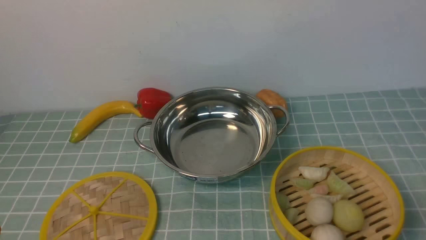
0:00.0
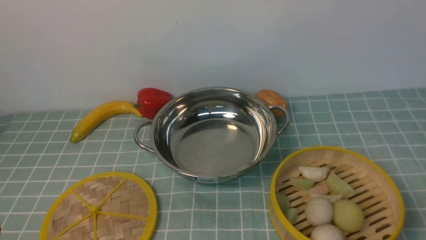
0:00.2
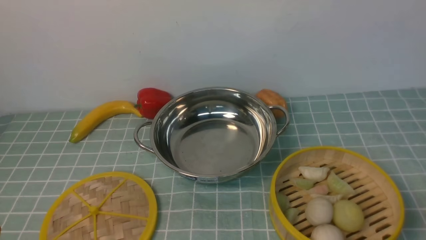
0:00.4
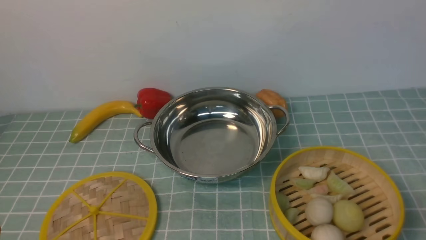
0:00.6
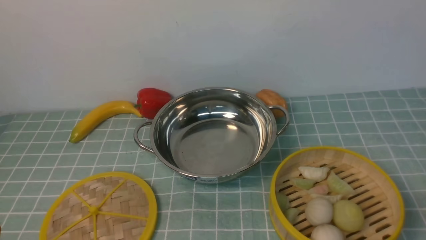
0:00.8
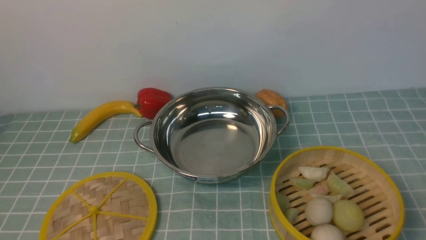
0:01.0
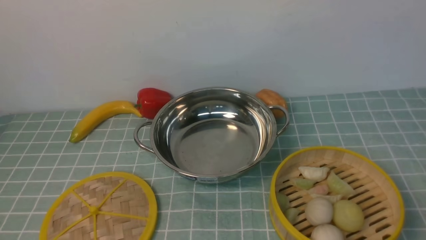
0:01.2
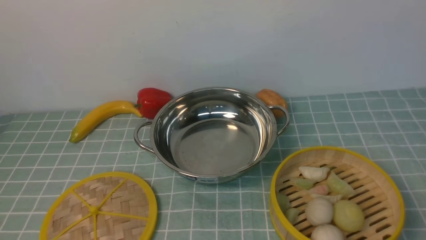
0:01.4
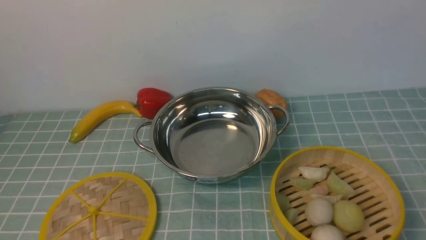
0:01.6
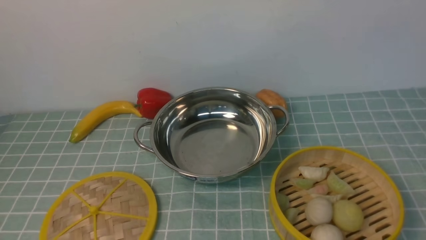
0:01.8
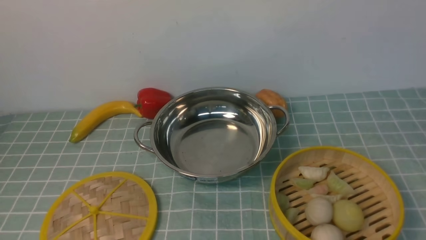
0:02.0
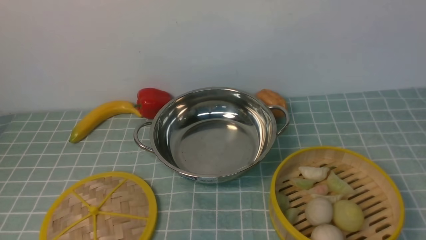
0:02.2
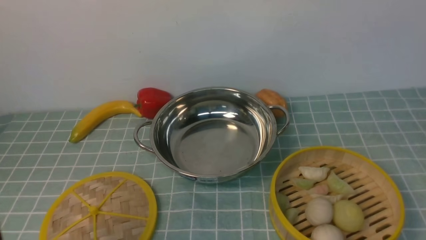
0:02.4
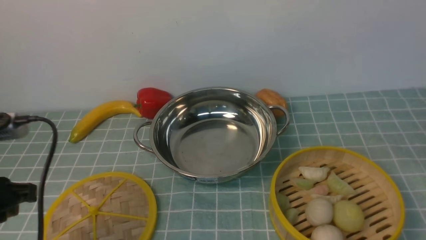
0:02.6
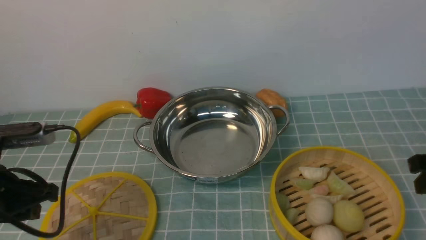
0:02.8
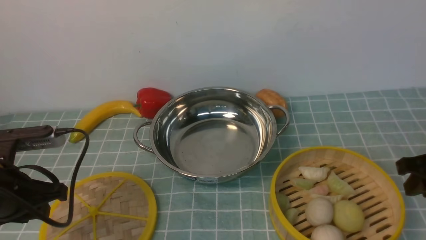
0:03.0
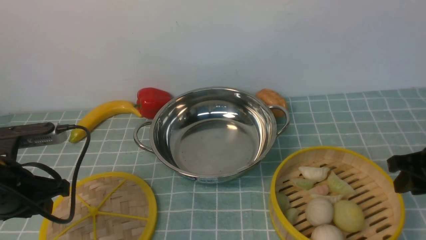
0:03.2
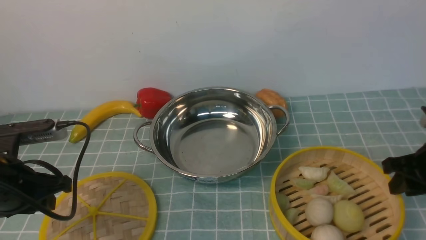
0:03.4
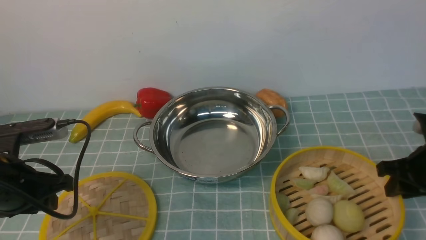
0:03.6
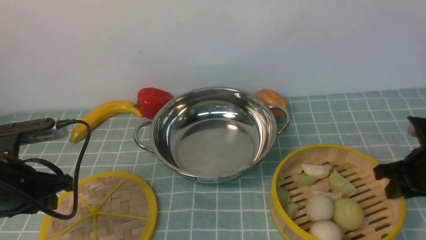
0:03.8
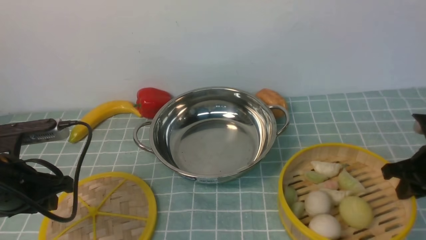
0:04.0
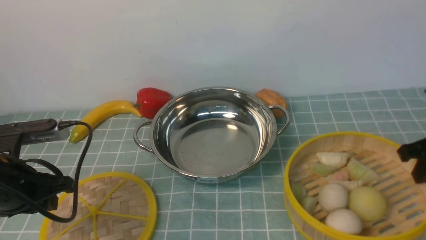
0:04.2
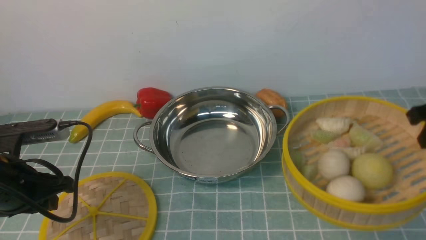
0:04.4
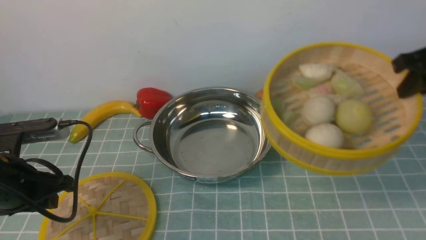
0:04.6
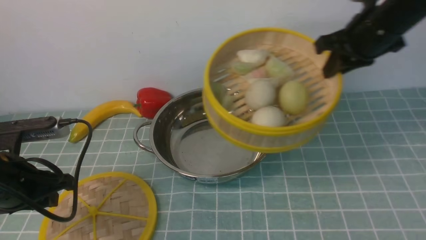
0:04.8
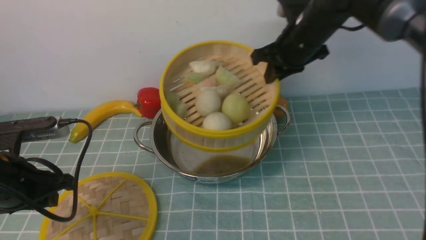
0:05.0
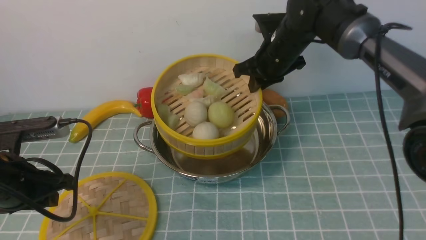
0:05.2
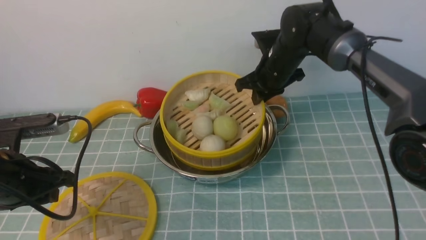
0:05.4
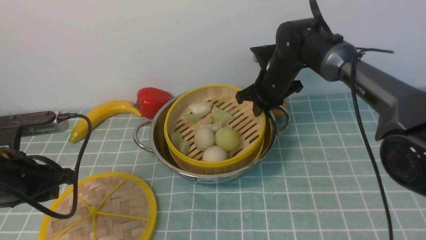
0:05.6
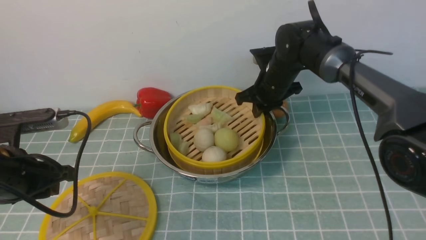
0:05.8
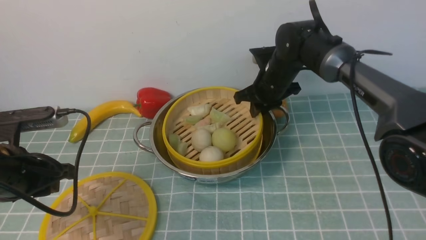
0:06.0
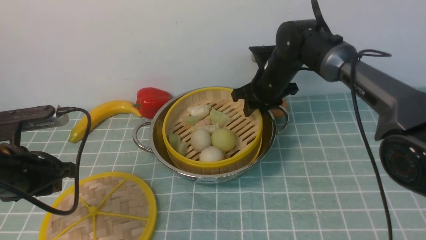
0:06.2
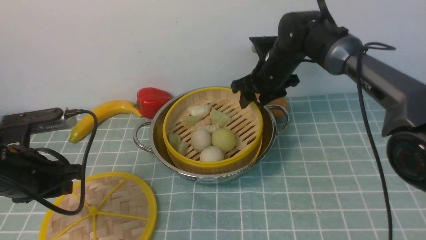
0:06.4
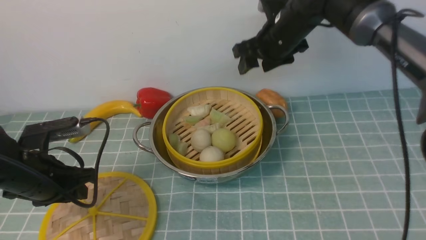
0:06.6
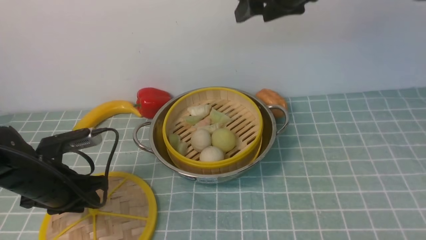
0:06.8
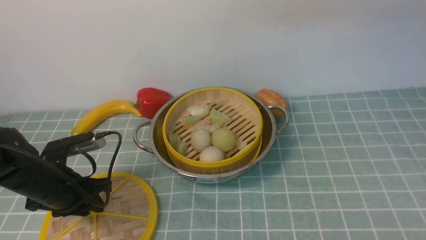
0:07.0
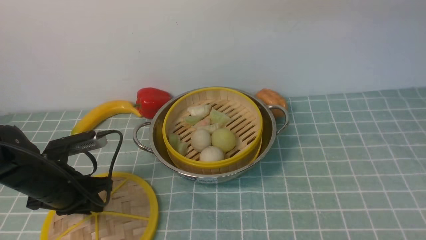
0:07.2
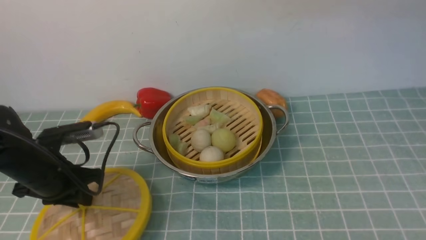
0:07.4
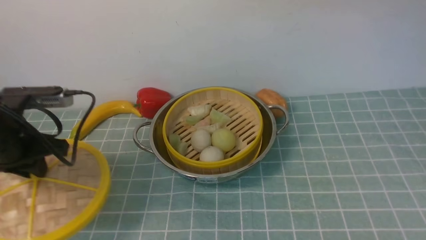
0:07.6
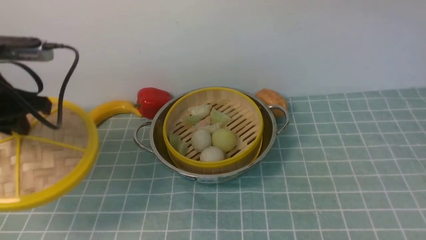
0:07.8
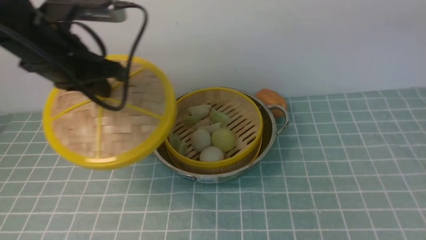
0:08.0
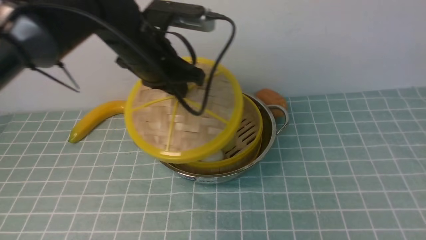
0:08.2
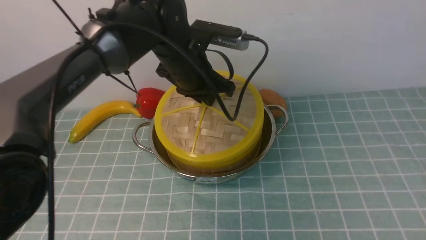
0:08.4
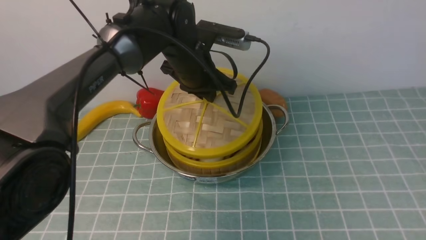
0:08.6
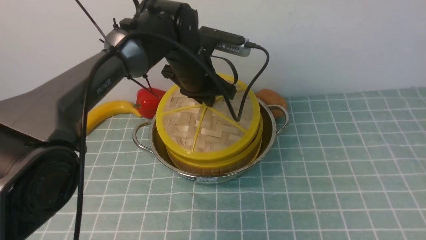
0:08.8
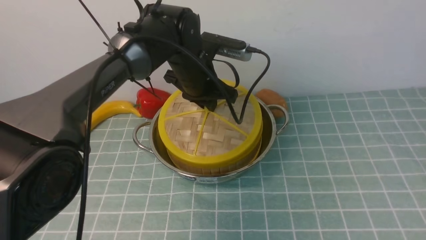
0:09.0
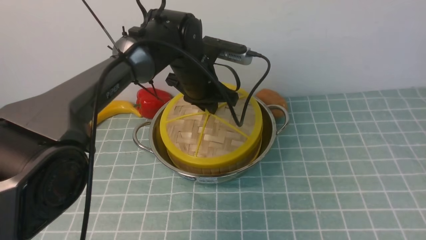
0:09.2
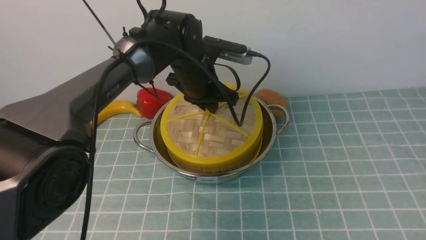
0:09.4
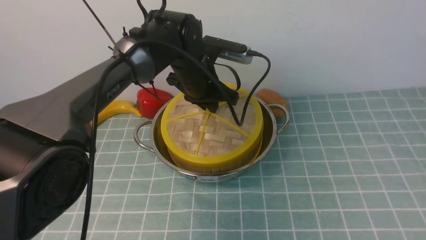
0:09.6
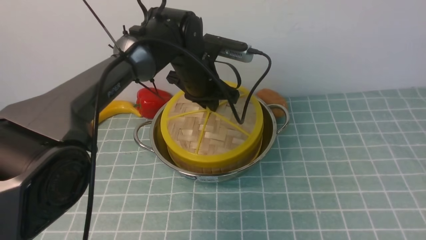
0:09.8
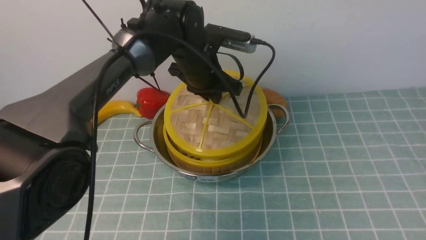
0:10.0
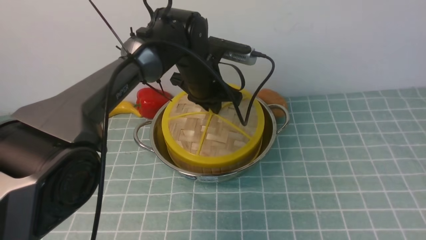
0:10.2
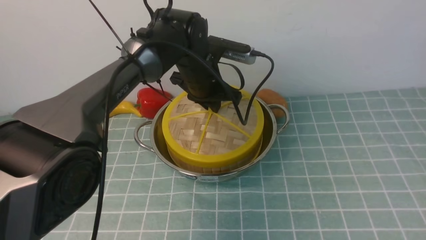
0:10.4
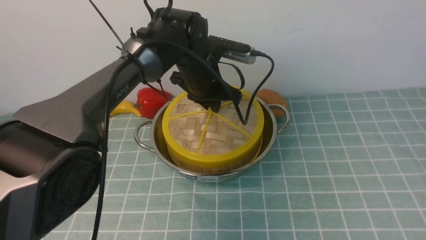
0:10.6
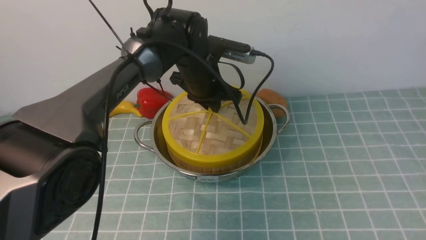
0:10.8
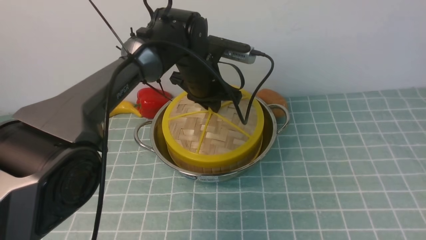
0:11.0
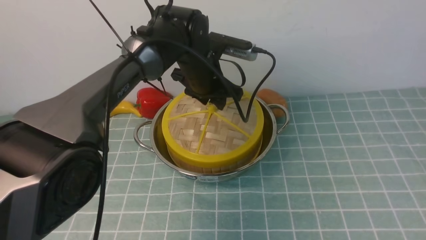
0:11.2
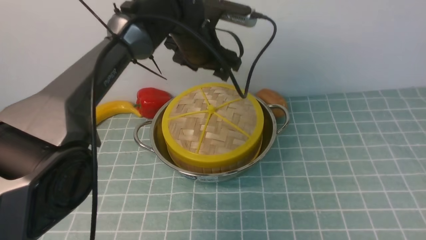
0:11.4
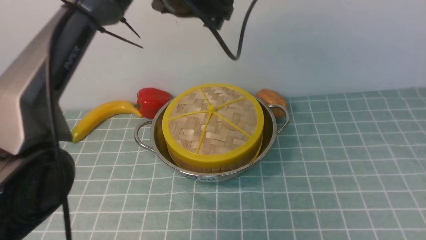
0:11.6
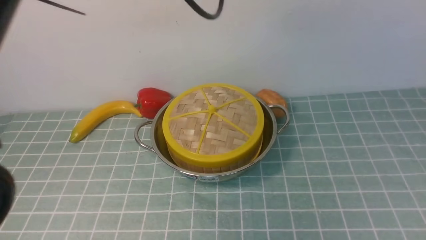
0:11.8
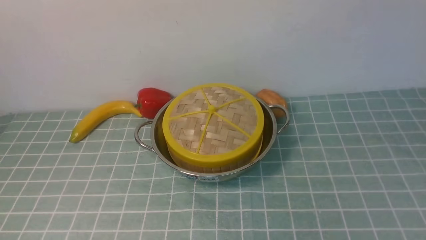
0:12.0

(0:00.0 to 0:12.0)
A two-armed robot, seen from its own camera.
Task of the whole recording: place the steamer in the pot on the blue tablecloth, and put the lid on the steamer.
Step, 0:00.0 - 0:04.2: use the right arm to lift the steamer closest to it.
Step, 0:04.4 - 0:06.6: use the right arm to put the steamer into the iron steamer pot in the middle.
Step, 0:06.8 - 0:07.8: use the left arm to lift the lid of the steamer.
Step, 0:08.0 - 0:11.6: use the left arm to place the steamer lid on the steamer.
0:01.6 - 0:03.0: Both grippers travel together forward, roughly 20 cm.
0:03.0 - 0:04.4: The right gripper goes some 10 cm upward and forward.
0:04.4 - 0:06.0: The right gripper moves to the left, forward and downward, about 30 cm.
0:06.0 - 0:07.6: The left gripper goes about 5 cm forward, and goes downward and returns, approximately 10 cm each way; the right gripper heads upward and backward, covering roughly 35 cm, and opens.
0:07.6 - 0:09.0: The right gripper moves backward and to the right, roughly 25 cm. The left gripper shifts some 25 cm to the right and forward.
0:09.0 - 0:10.4: The grippers move only a little.
0:10.4 - 0:12.0: The left gripper heads upward and backward, covering approximately 35 cm, and opens, then closes once more. The right gripper heads downward, covering some 10 cm, and closes its fingers.

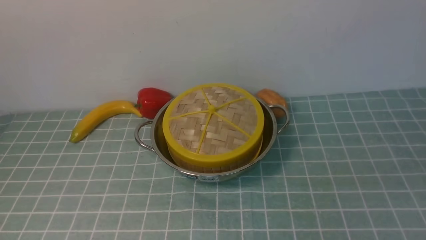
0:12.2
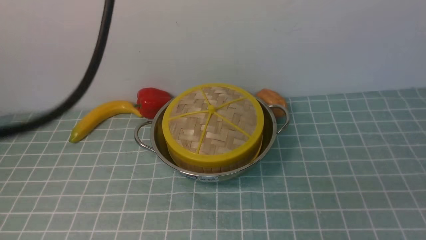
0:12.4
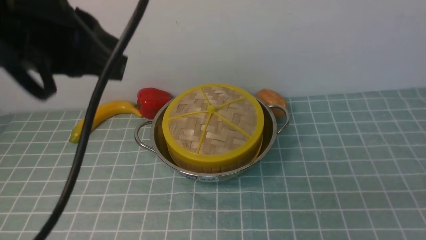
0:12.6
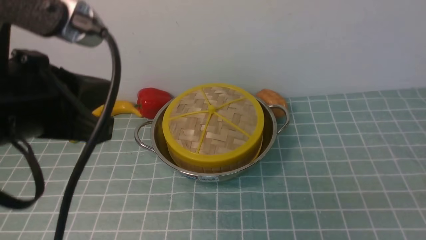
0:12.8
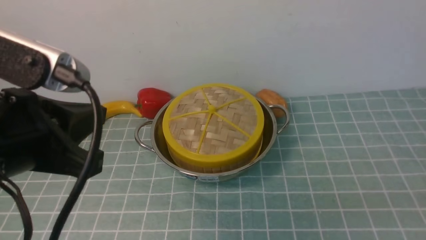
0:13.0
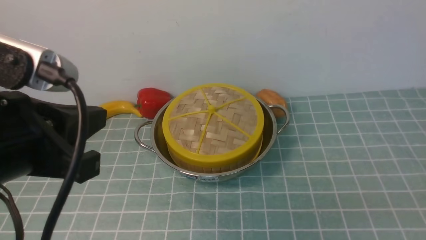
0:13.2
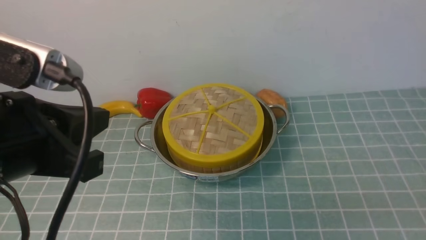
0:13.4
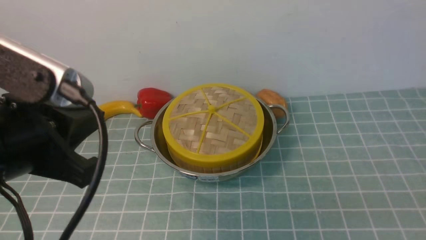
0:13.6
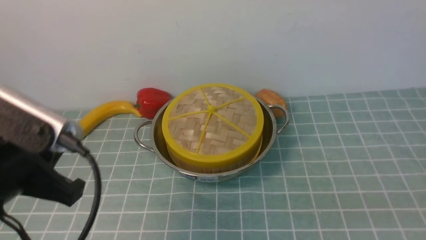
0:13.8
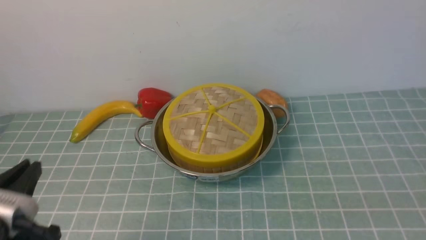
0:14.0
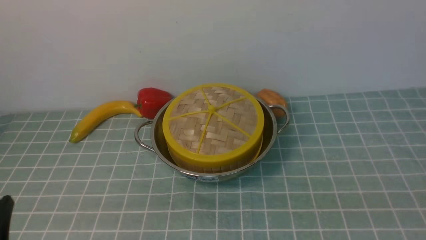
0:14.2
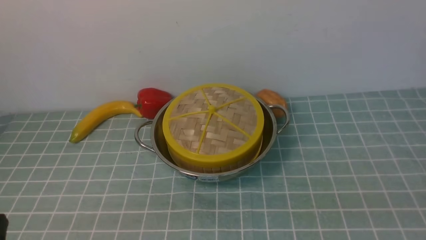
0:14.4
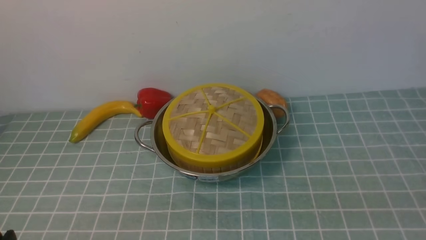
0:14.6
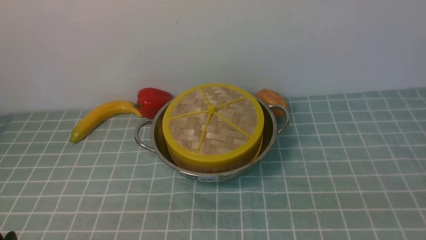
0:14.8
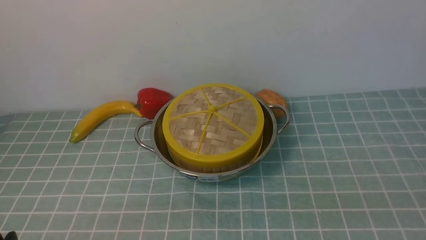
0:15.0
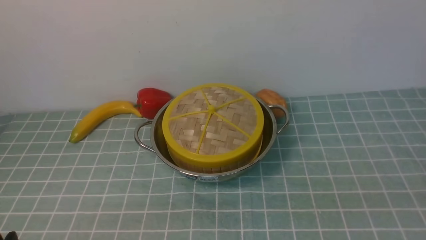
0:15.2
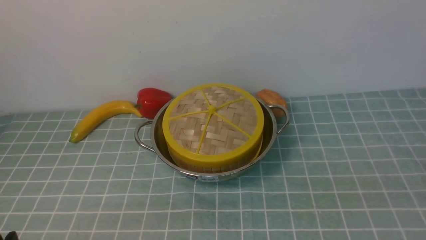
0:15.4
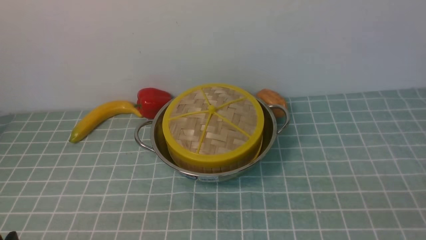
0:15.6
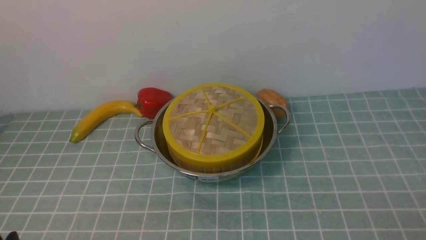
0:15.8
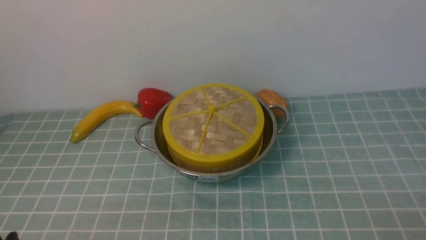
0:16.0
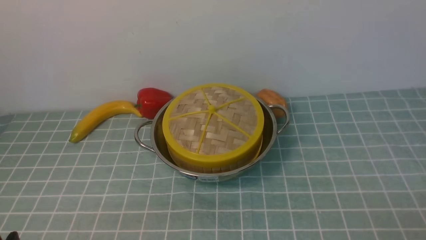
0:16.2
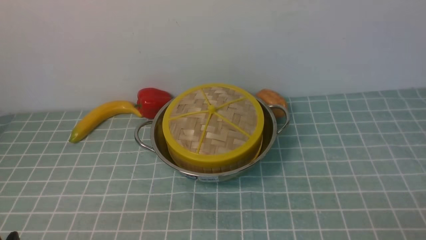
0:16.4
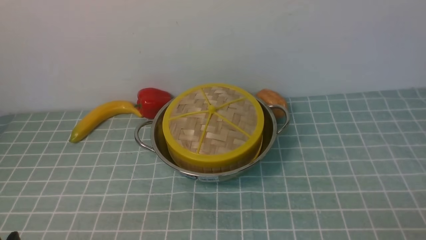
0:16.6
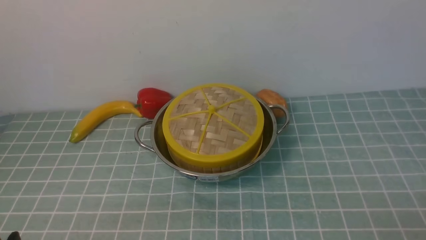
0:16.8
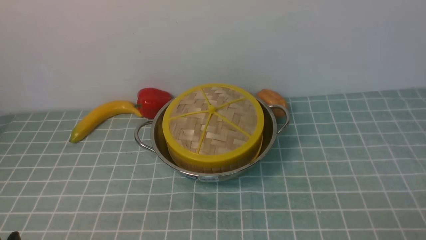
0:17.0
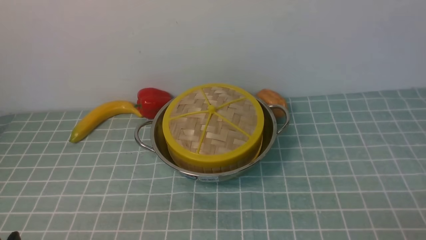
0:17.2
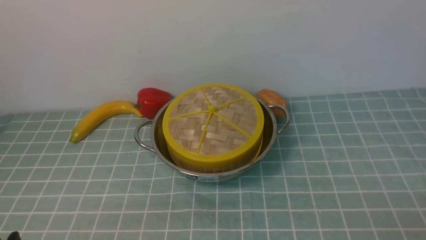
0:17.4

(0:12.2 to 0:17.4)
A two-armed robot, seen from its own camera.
Task of the whole recording: place the steamer in the pot on the blue tablecloth, and put the lid on the steamer.
0:12.2 - 0:14.0: The left gripper is displaced downward, backward and to the left by about 35 cm. The right gripper moves downward, some 5 cm.
0:14.0 - 0:15.6: Both grippers travel together downward, roughly 5 cm.
